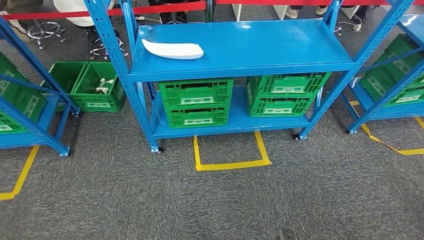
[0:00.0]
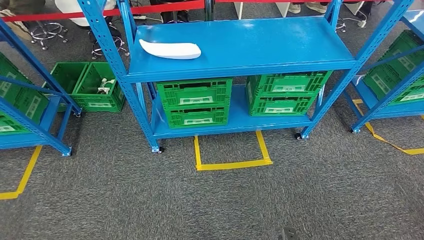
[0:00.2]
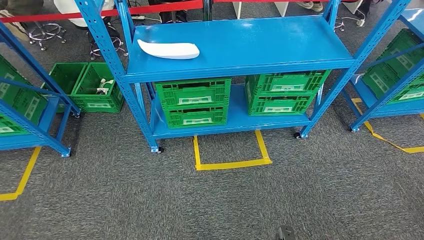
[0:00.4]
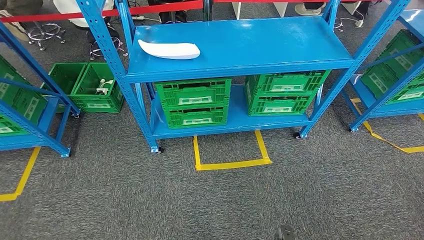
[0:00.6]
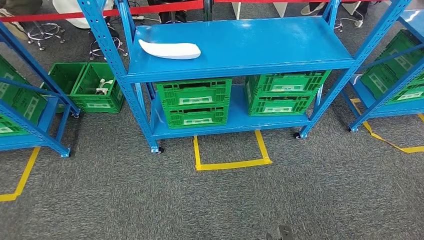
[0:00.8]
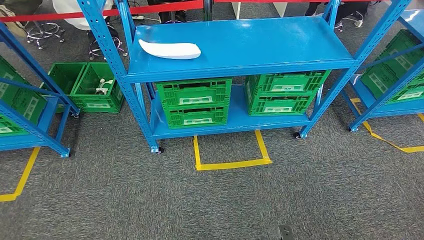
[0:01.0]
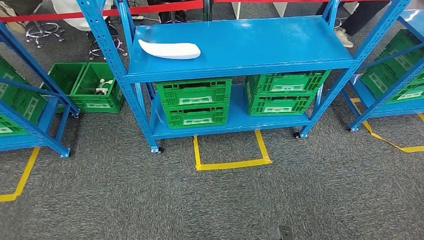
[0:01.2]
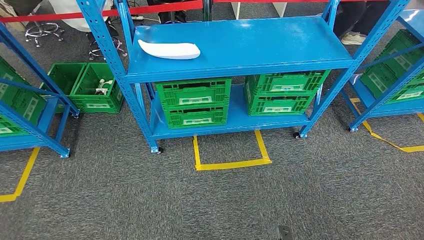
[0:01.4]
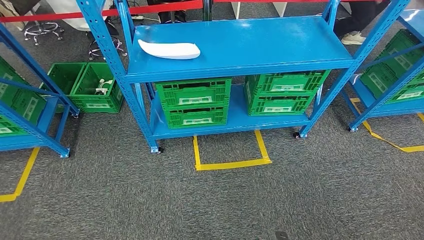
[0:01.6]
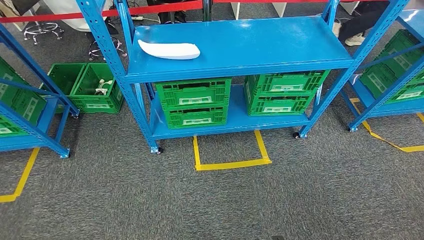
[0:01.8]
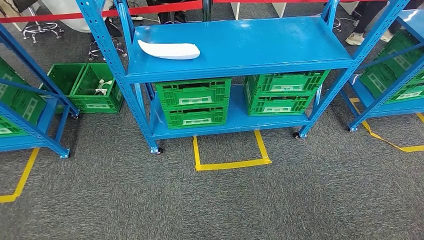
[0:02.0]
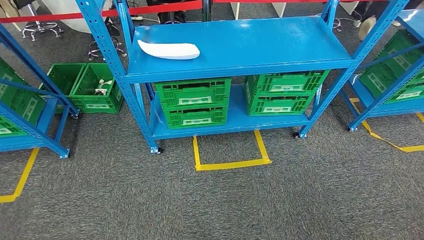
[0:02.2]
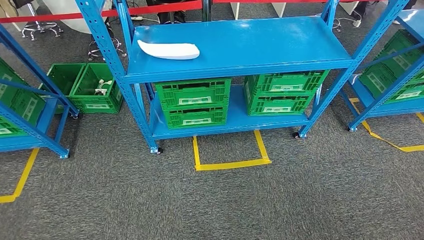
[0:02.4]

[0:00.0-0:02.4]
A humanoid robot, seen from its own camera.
Step, 0:00.0 to 0:02.4: Return to the initial position at the workbench.
0:00.0 to 0:01.2: Both hands stay put.
0:01.2 to 0:02.4: The hands both shift backward by roughly 5 cm.

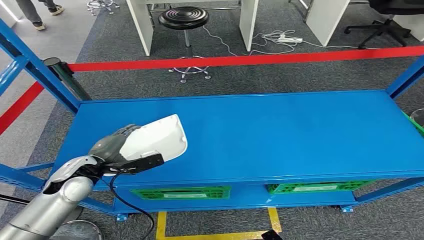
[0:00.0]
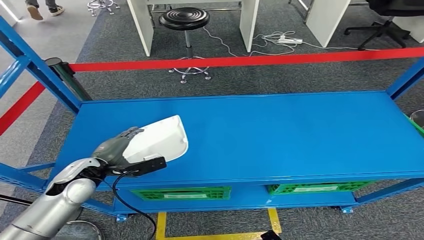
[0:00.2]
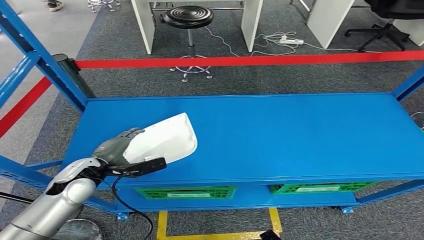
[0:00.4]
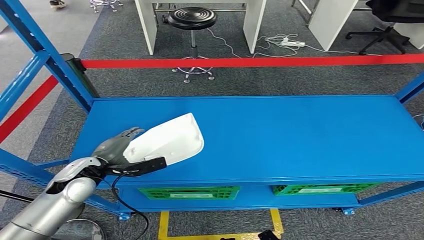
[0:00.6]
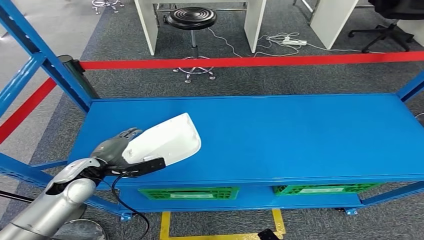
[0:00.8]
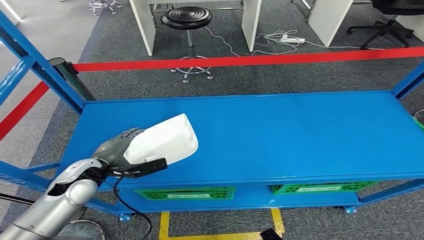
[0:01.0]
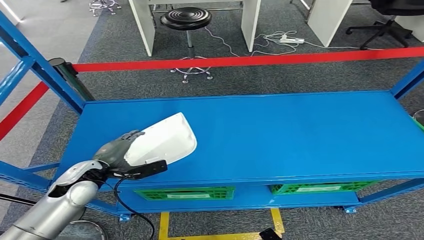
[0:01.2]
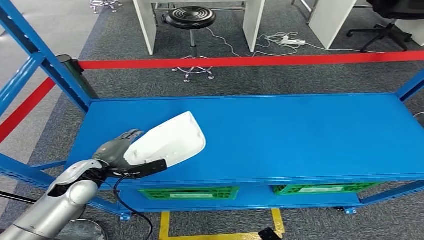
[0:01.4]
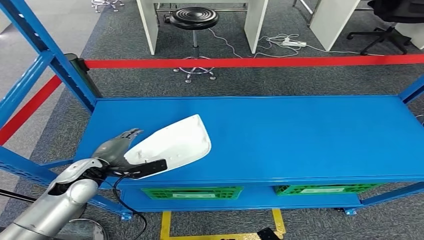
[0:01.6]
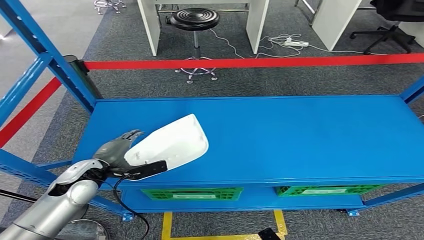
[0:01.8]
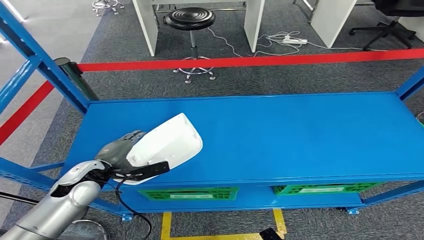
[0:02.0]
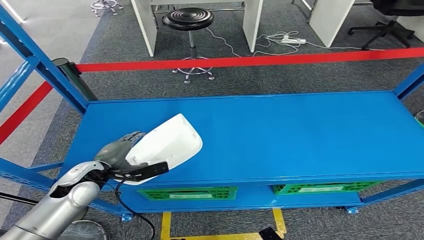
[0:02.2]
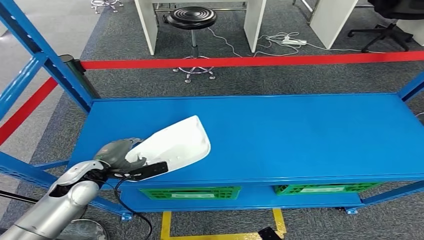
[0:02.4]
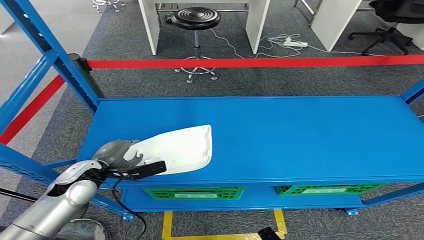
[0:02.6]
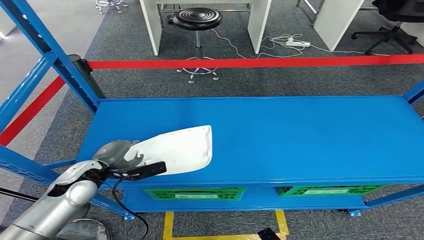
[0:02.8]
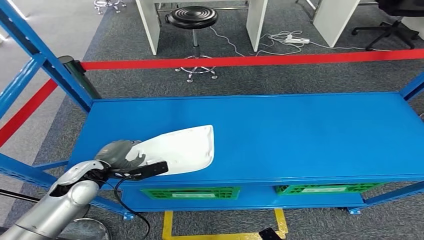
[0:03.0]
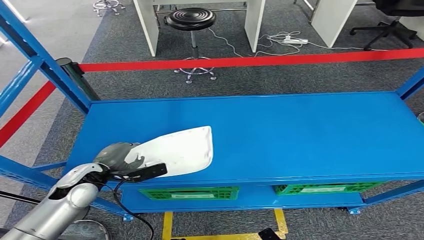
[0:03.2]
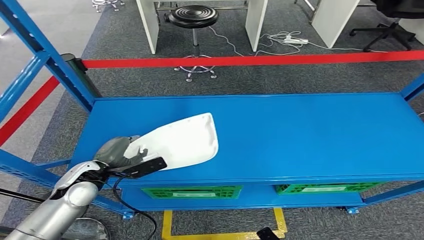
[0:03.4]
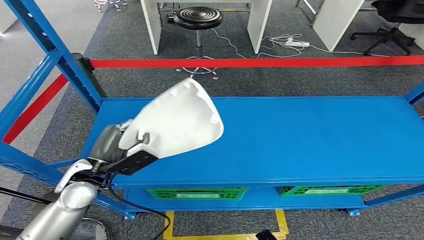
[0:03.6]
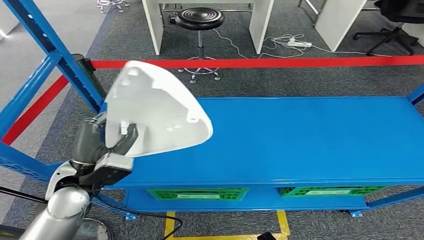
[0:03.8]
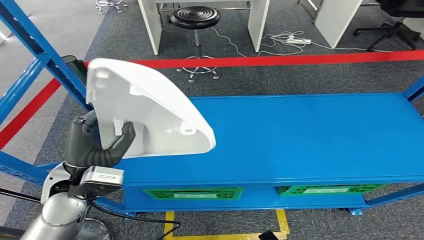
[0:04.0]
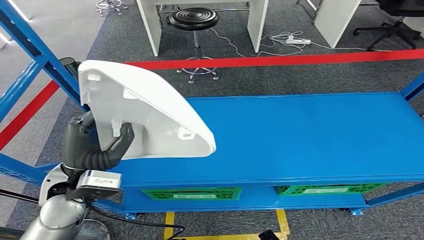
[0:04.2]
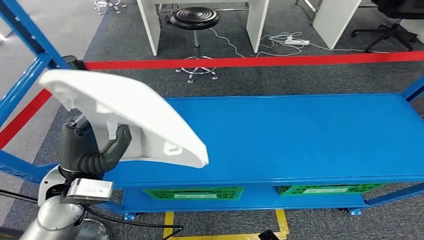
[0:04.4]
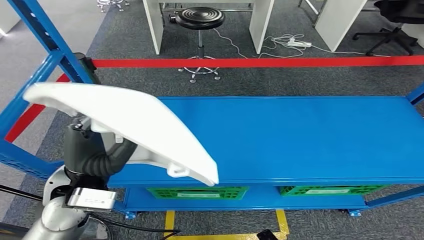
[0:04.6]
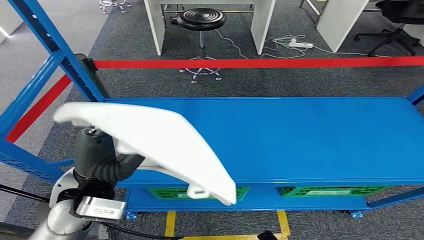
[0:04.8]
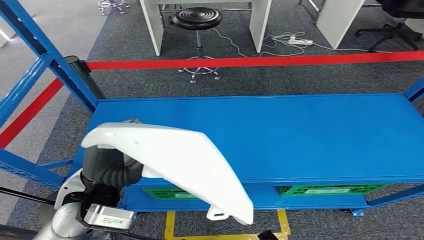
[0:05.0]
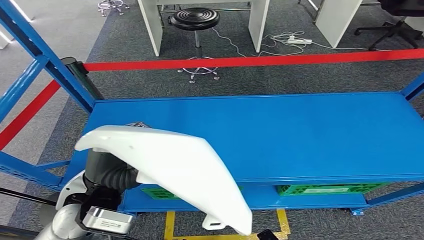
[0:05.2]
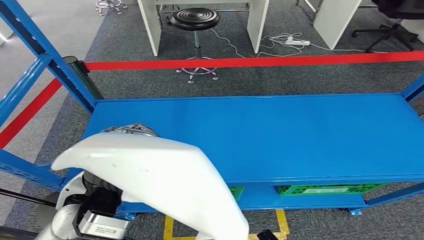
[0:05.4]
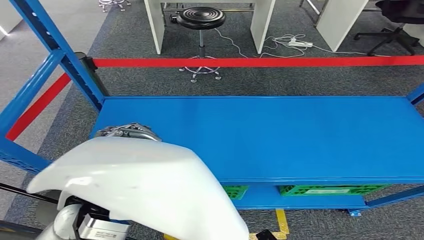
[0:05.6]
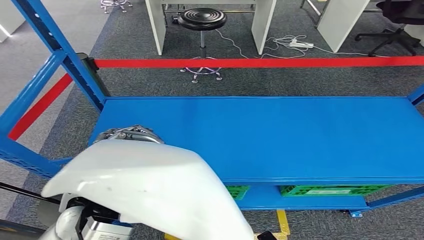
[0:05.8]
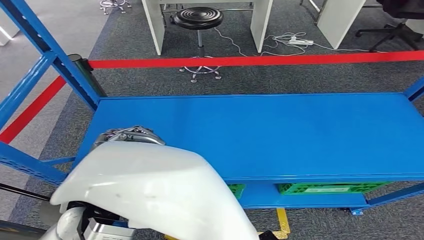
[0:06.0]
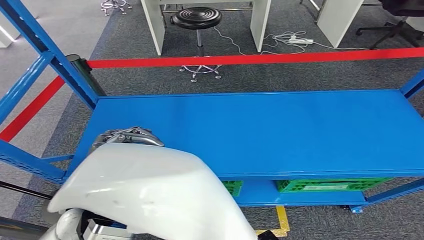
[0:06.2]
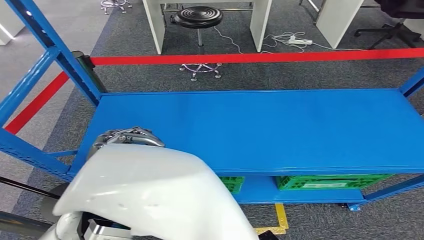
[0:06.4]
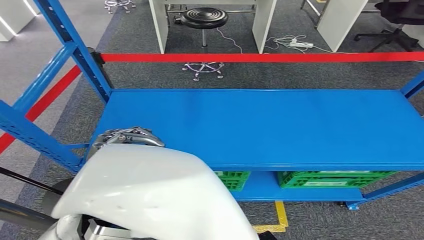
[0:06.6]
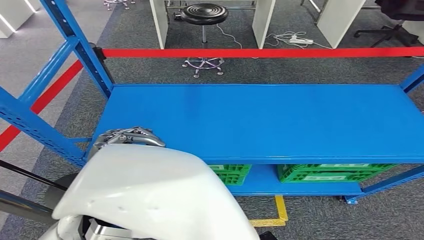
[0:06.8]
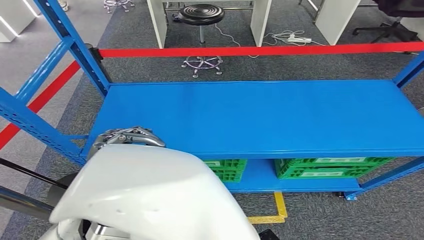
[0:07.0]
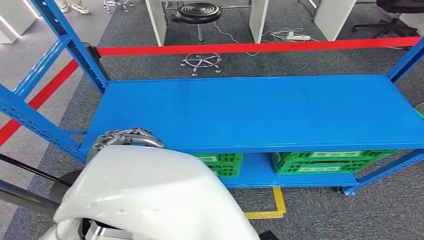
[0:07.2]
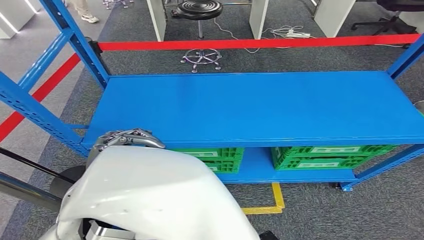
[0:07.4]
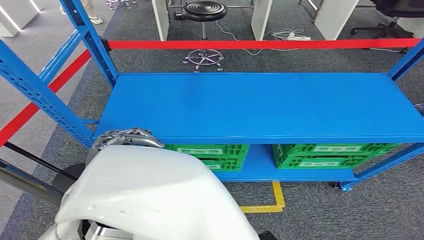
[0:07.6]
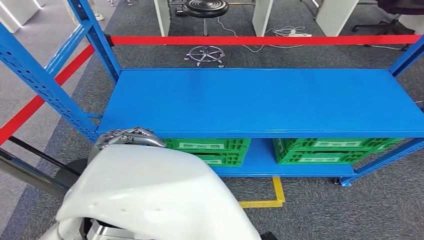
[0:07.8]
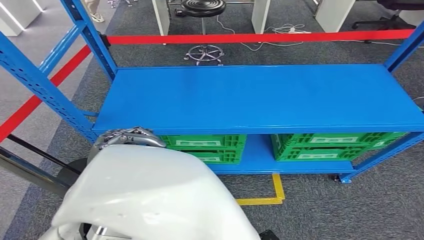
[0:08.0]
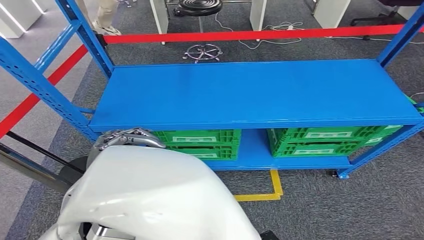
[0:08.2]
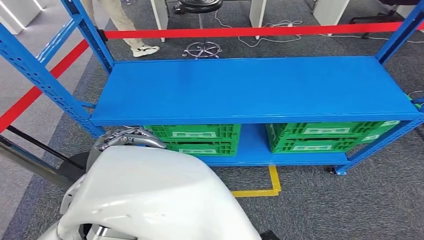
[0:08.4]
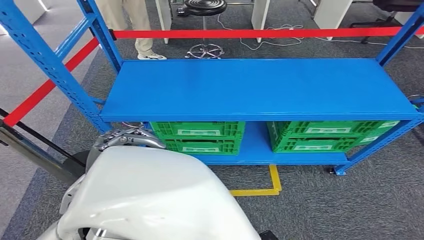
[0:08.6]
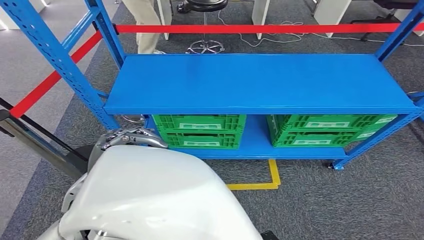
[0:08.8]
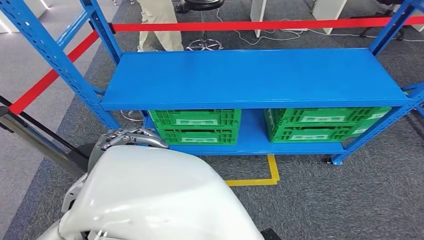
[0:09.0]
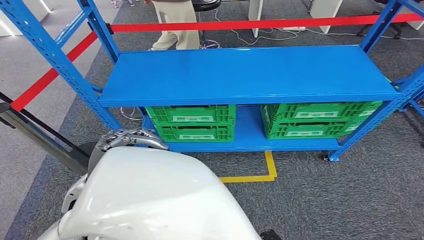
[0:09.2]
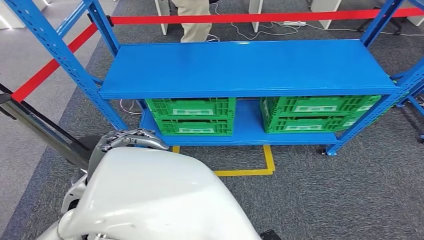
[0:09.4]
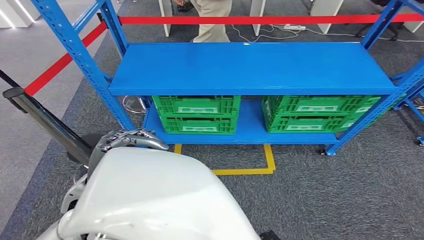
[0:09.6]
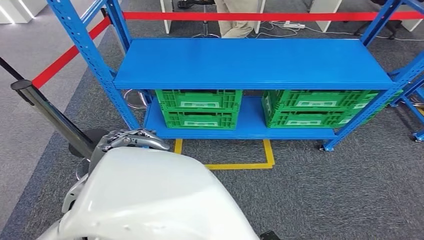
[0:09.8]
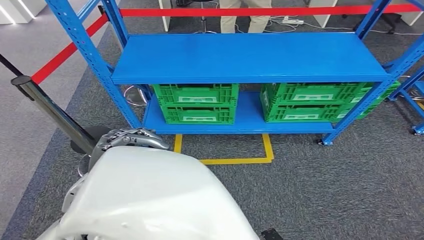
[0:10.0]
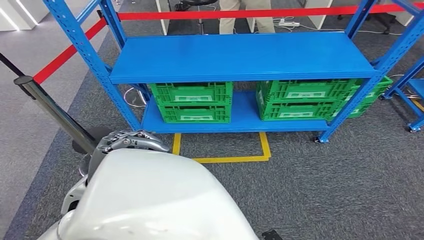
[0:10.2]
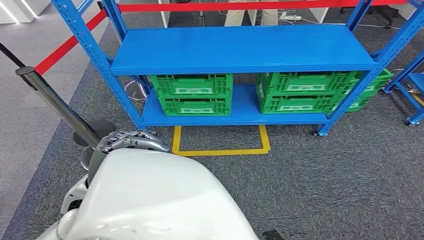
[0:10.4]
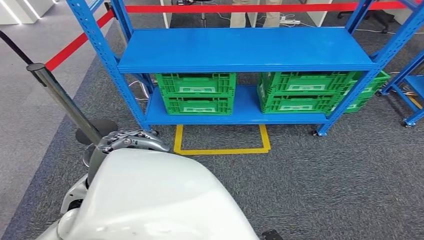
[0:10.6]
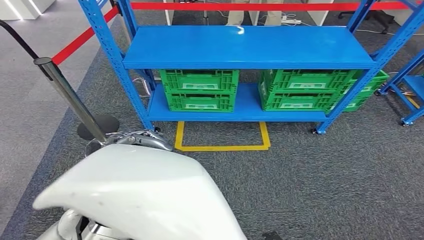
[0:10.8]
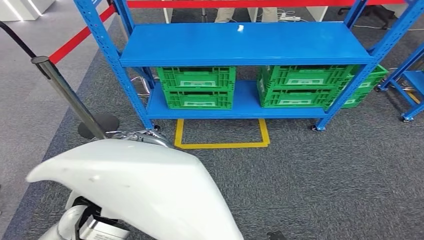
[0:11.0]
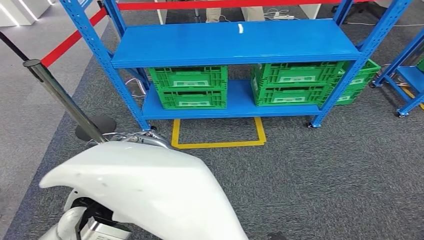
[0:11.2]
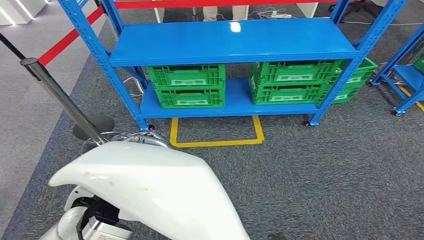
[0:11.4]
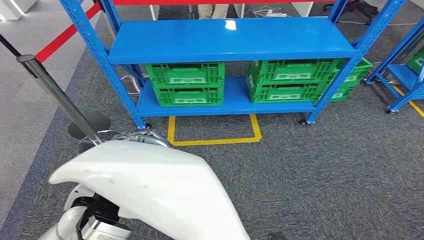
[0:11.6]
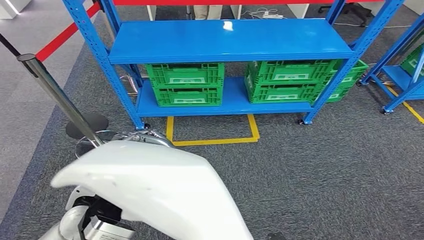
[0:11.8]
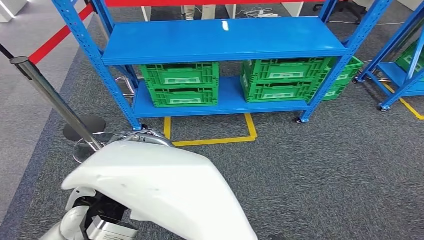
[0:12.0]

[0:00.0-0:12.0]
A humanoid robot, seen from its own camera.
Step, 0:00.0 to 0:05.4: Pick up the small component from the shelf.
0:01.6 to 0:03.0: Neither hand changes place.

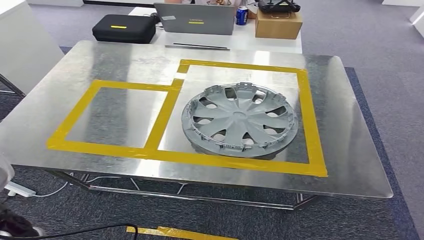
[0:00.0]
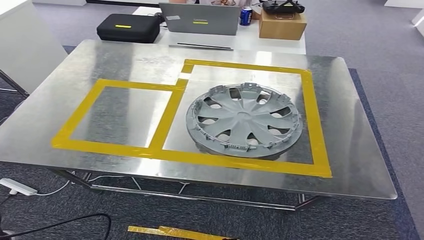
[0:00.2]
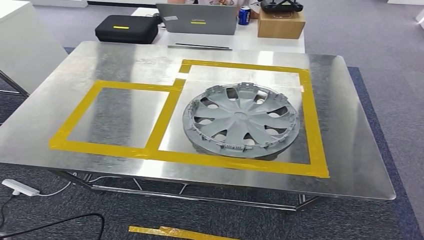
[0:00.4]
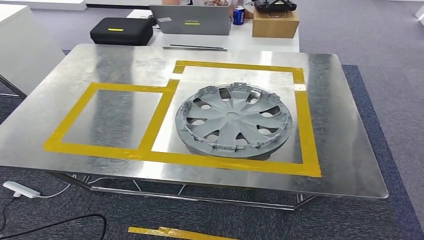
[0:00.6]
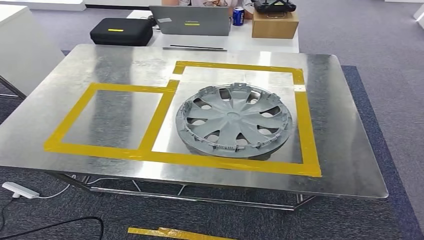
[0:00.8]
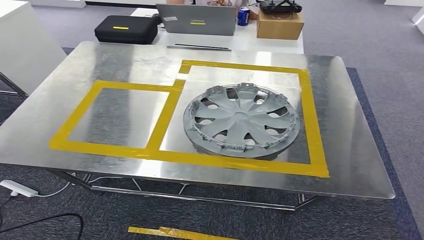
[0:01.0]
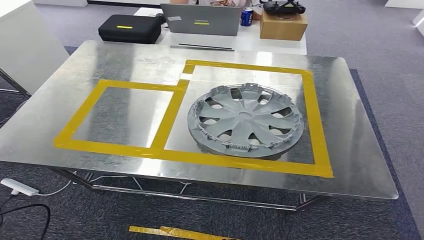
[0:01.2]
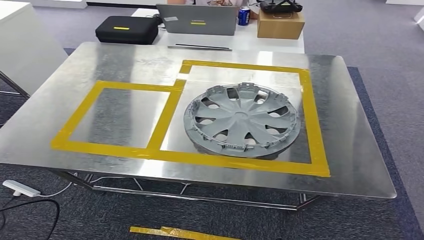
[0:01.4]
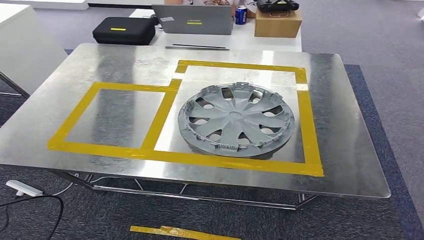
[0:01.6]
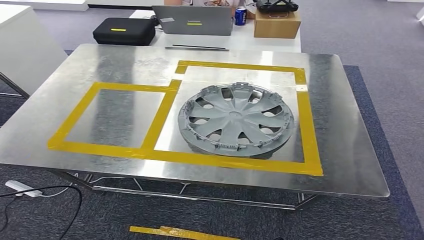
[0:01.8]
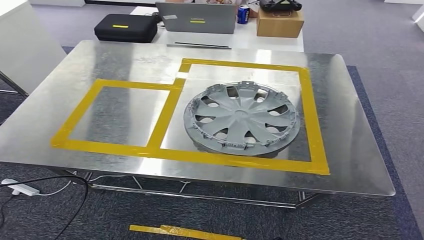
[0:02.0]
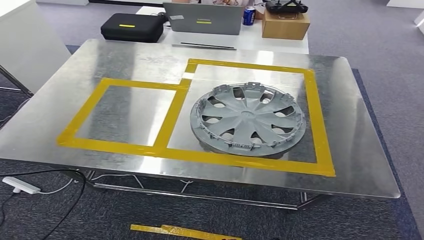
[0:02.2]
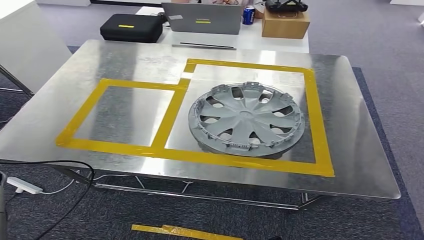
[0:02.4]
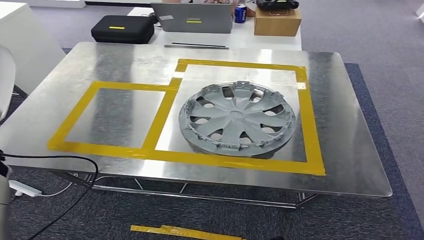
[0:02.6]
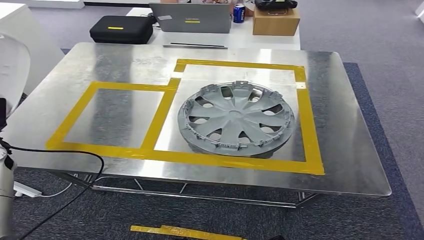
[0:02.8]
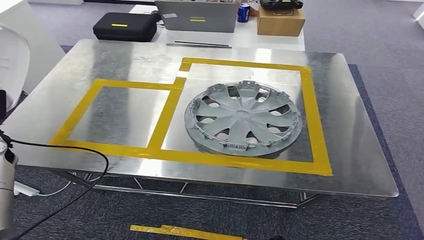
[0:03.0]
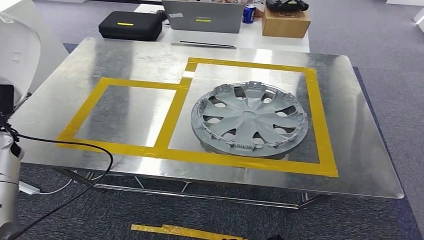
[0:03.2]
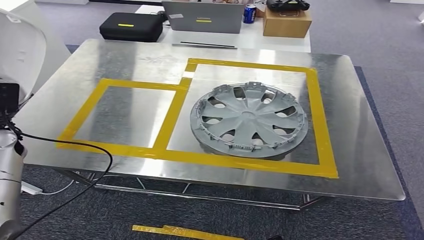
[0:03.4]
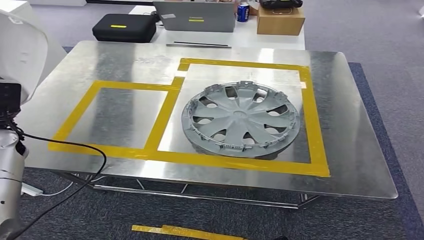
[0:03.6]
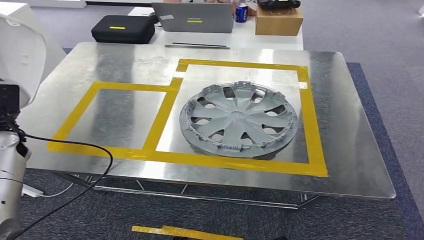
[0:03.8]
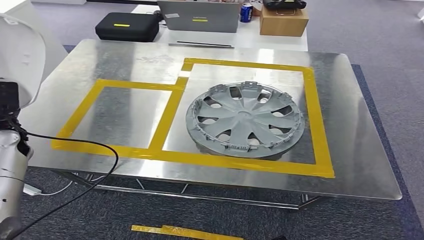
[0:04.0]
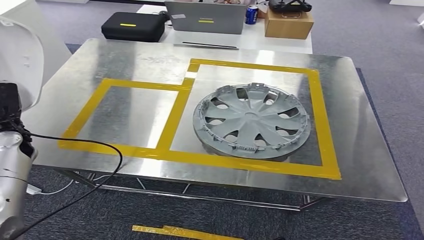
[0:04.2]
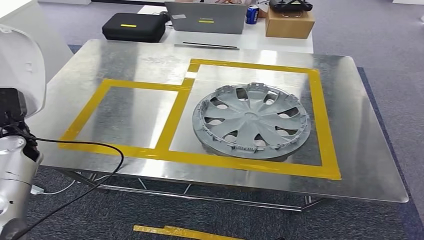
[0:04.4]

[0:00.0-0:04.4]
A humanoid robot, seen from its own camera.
0:00.0 to 0:01.4: The left hand goes roughly 20 cm to the left.
0:01.4 to 0:03.0: The left hand is displaced forward by approximately 20 cm.
